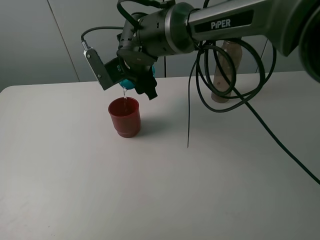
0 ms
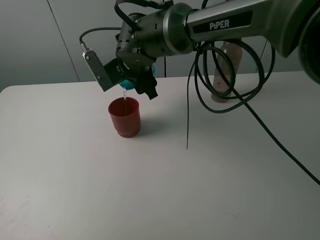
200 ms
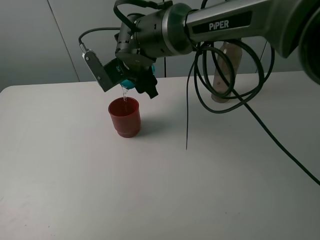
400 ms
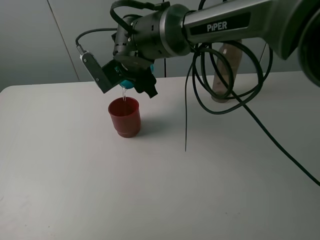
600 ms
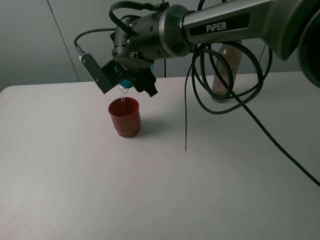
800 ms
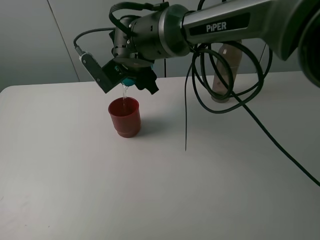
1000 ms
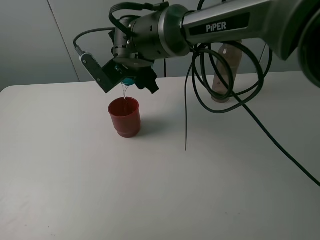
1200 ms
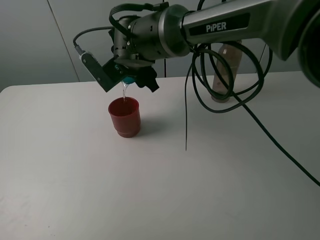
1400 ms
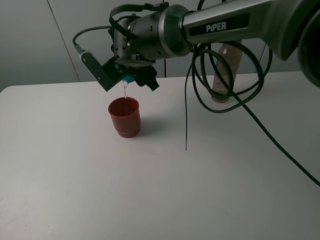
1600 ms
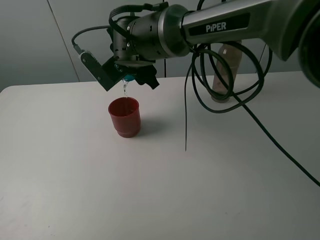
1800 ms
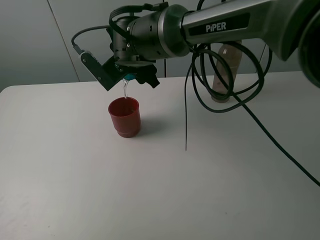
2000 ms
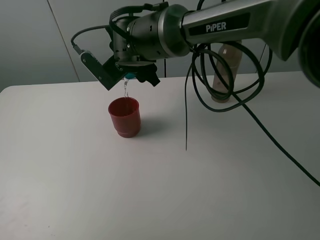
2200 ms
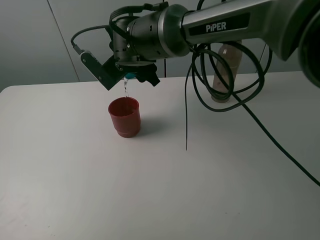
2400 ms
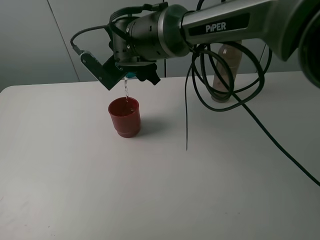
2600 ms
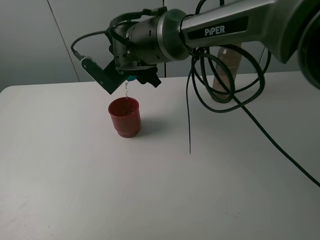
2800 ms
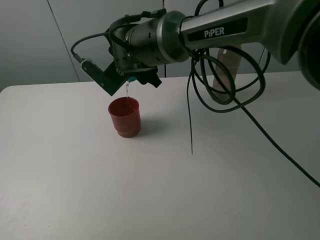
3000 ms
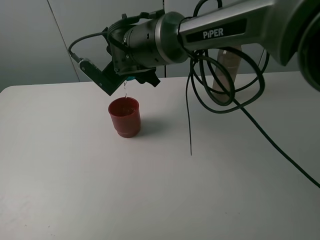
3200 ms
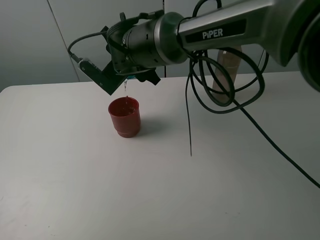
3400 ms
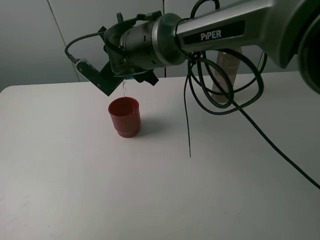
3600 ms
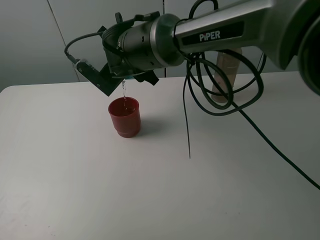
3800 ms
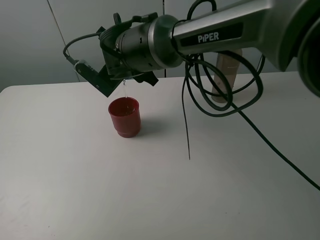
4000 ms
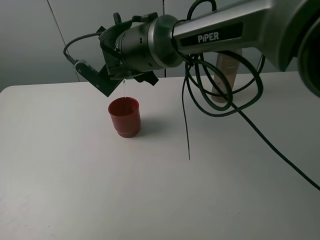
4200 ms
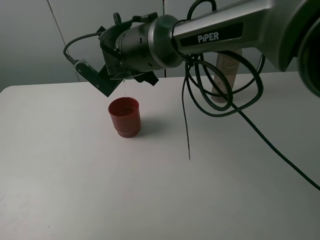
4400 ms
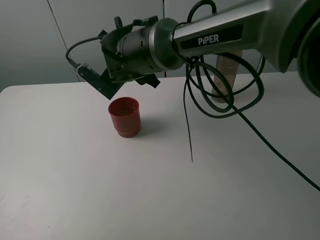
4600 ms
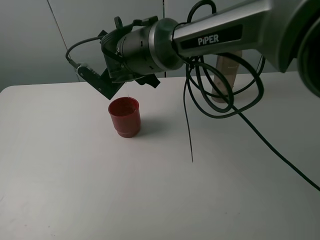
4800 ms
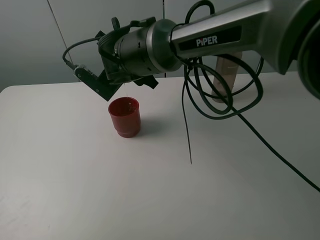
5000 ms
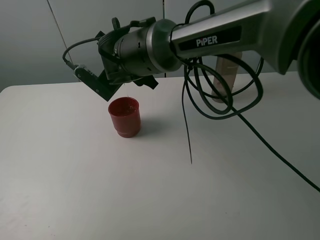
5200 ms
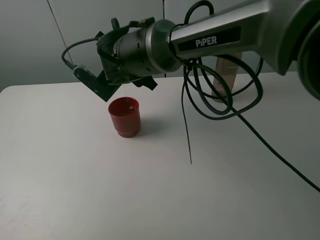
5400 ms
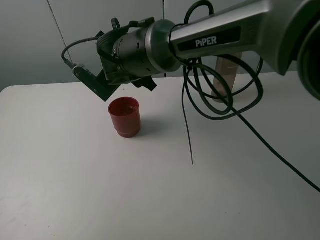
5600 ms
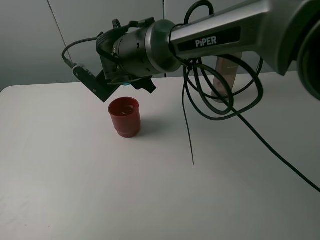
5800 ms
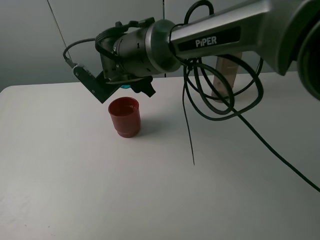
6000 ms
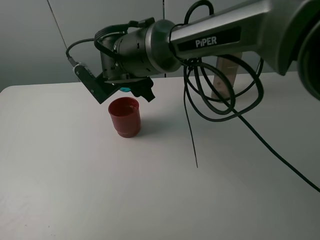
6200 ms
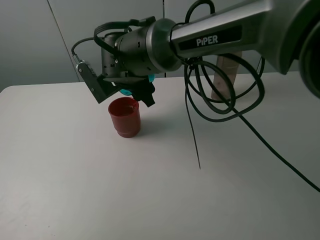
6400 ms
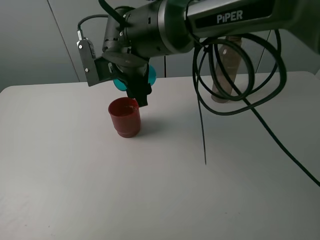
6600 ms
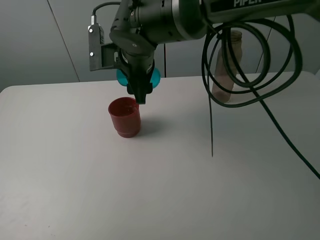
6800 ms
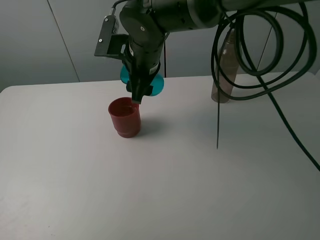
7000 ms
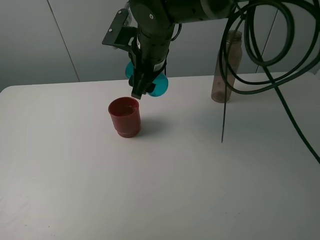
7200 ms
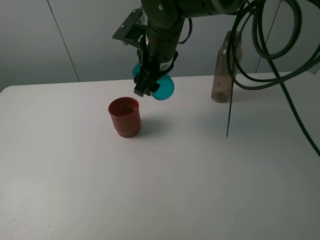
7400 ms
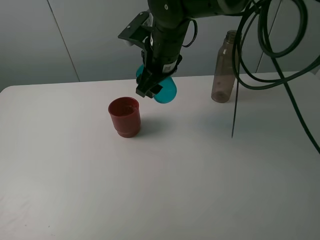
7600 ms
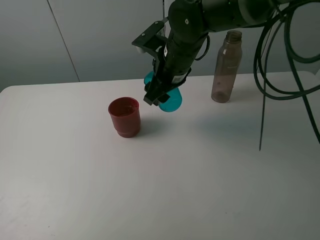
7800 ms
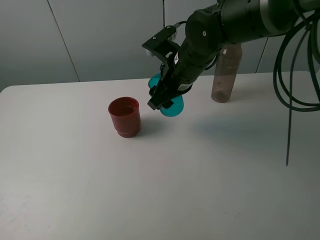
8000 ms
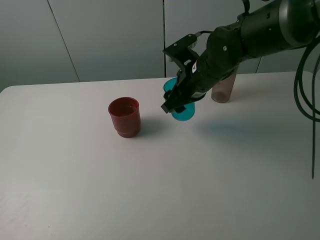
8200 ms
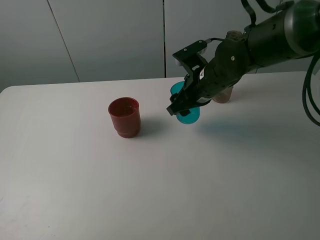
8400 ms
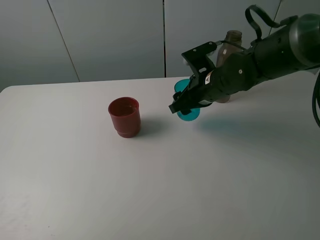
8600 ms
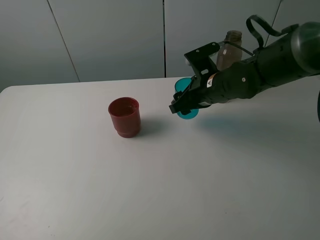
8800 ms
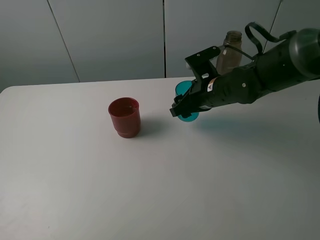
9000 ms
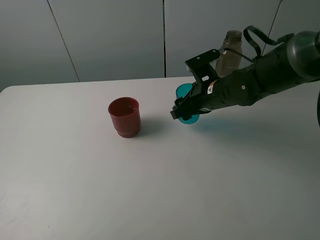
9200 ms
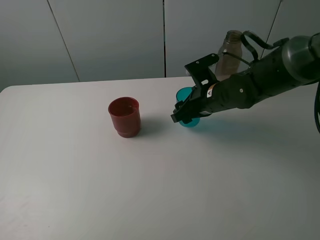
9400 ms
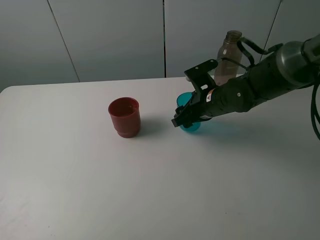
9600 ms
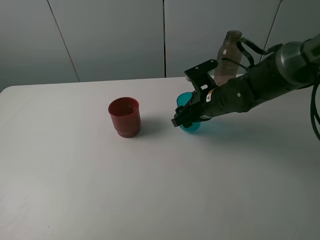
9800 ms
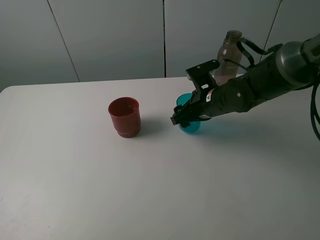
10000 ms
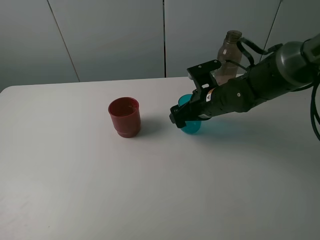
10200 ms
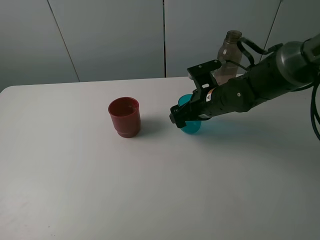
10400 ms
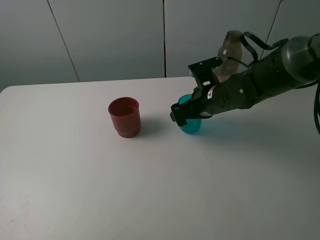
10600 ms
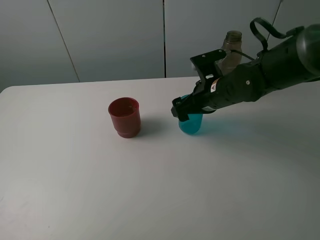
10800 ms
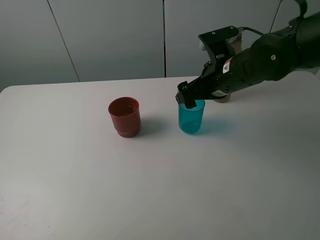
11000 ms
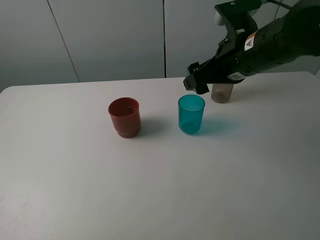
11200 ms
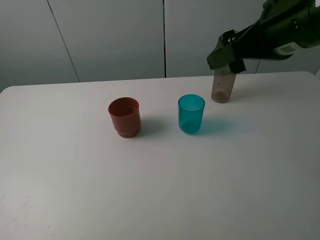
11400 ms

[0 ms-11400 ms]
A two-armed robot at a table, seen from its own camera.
Task of the whole recording: pick up the bottle and pour water into the cup, then pick up the cup containing water and pour it into another cup.
Step, 0 ms to 4600 ms: Pour water from blue cup to red cup with the right gripper.
Step, 4800 ms to 10600 ms: Place the blue cup with the right gripper.
0 ms to 1400 ms: The grippers stay close to where they were, moving slightly.
1400 ms to 4200 ms: The grippers move only a little.
4200 ms to 5600 ms: Both grippers stay put.
5600 ms to 7200 ms: The right gripper heads to the right, covering some 5 cm.
7200 ms to 8600 ms: The right gripper travels to the right and downward by some 15 cm.
8600 ms to 10000 ms: The right gripper opens up.
10000 ms to 11400 ms: The right gripper heads upward and backward, covering about 25 cm, and opens up.

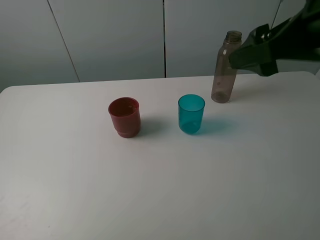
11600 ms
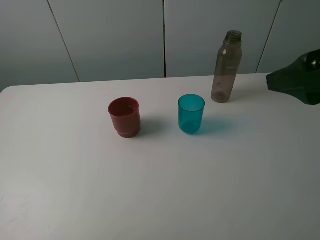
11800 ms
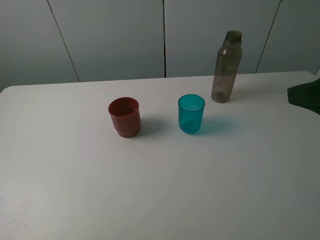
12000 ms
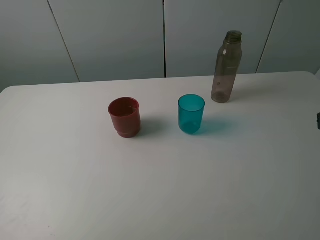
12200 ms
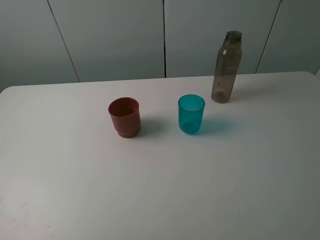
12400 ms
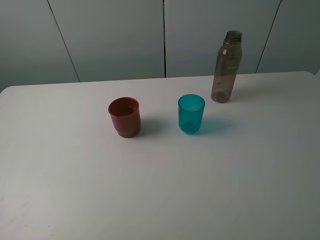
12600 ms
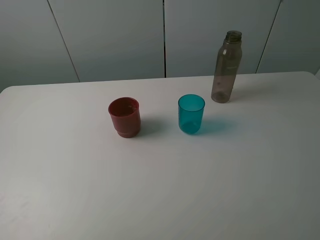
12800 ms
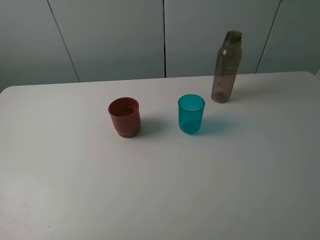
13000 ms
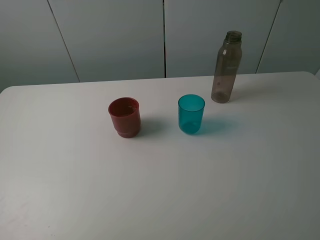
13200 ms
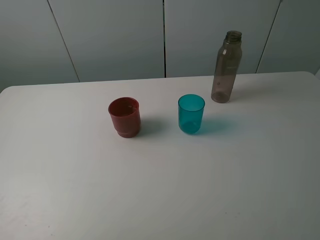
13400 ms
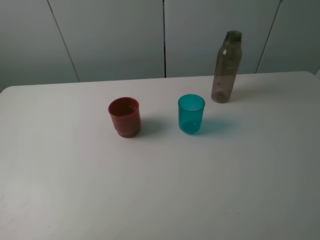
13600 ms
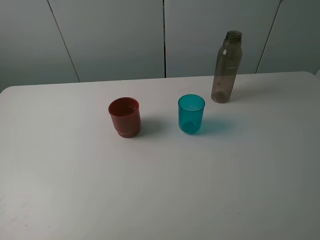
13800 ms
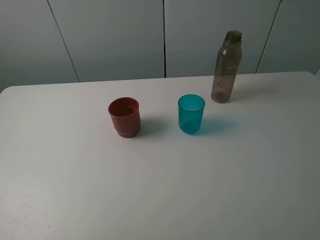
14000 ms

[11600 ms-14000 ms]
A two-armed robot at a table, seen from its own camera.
Task of the whole recording: pick up the bottle and pour water into the cup, then pick up the cup containing water and pour it into another cup.
11600 ms to 12800 ms: The right gripper goes approximately 15 cm backward and to the right.

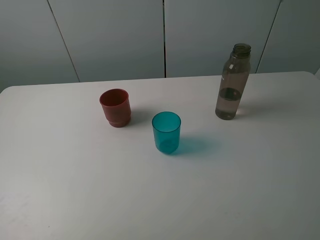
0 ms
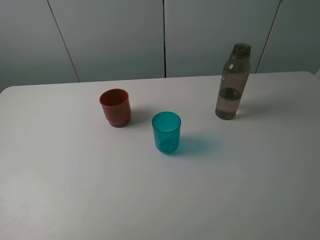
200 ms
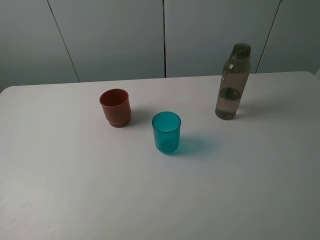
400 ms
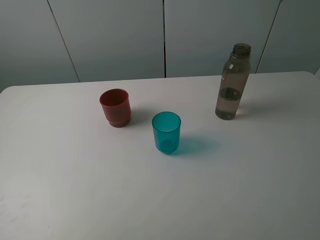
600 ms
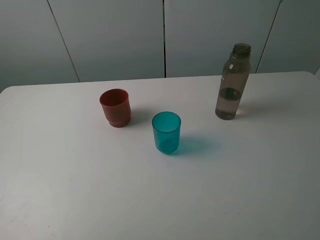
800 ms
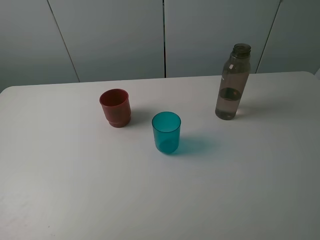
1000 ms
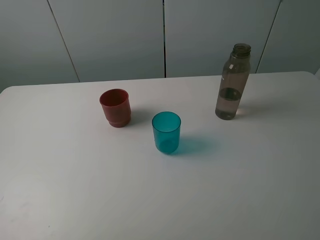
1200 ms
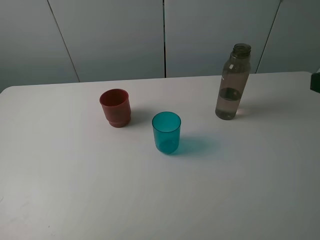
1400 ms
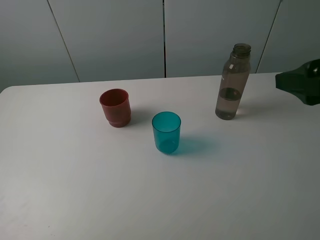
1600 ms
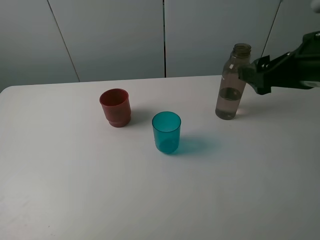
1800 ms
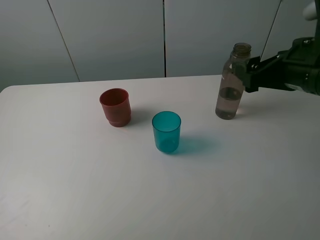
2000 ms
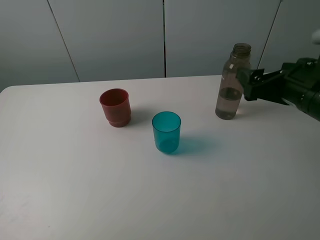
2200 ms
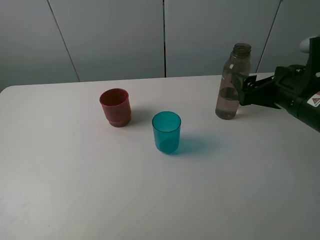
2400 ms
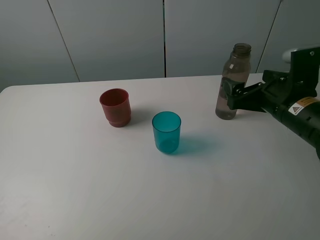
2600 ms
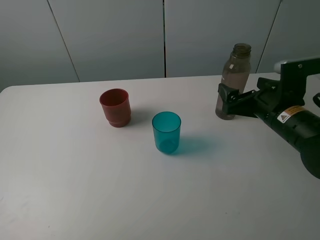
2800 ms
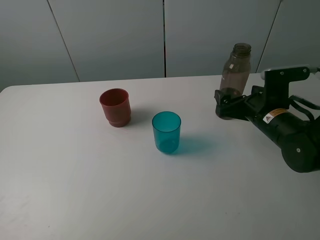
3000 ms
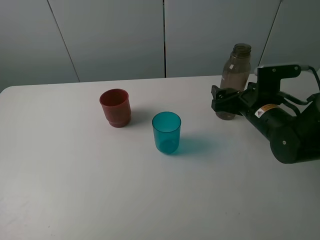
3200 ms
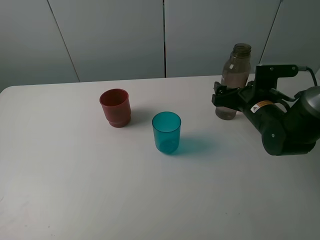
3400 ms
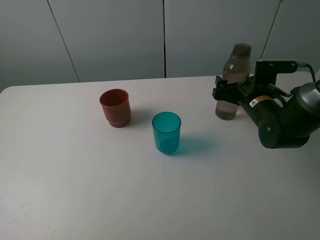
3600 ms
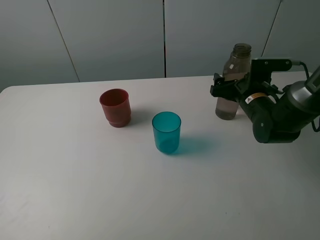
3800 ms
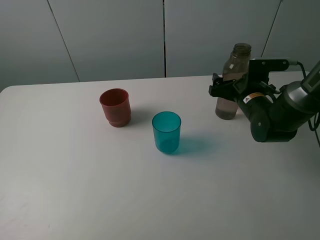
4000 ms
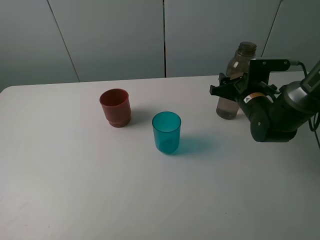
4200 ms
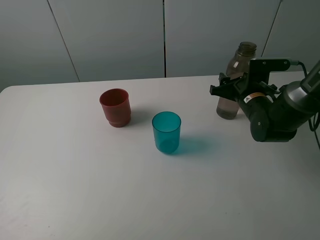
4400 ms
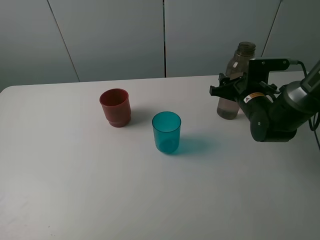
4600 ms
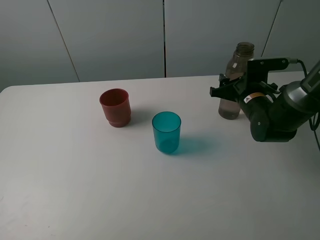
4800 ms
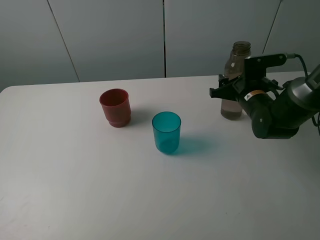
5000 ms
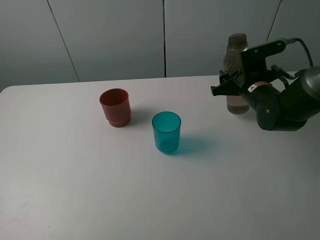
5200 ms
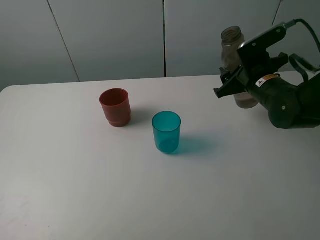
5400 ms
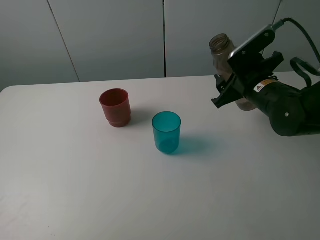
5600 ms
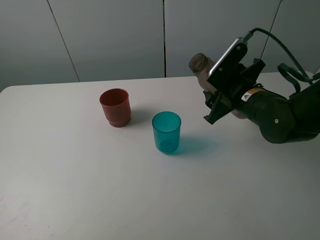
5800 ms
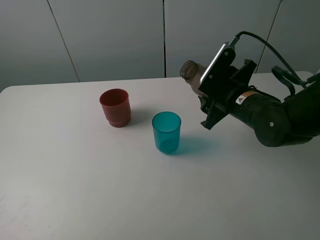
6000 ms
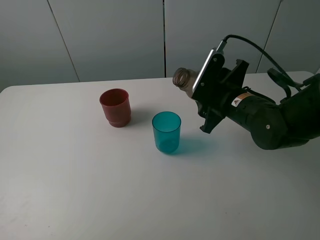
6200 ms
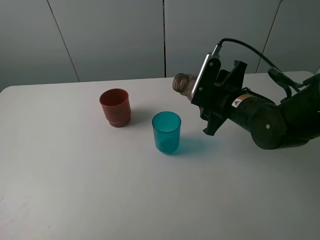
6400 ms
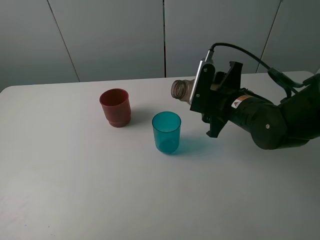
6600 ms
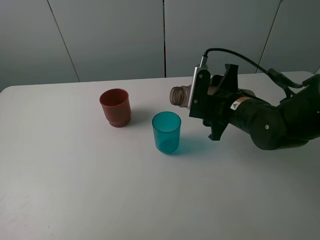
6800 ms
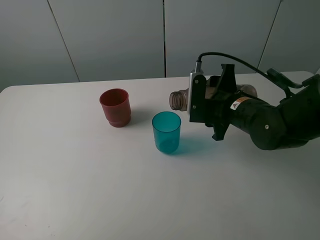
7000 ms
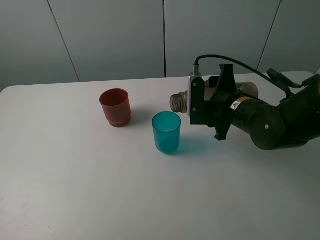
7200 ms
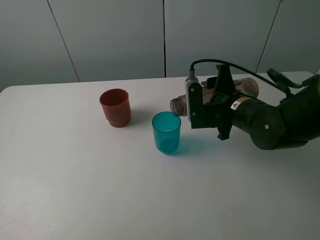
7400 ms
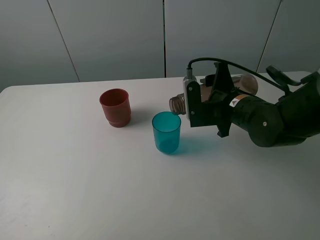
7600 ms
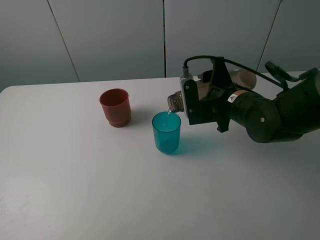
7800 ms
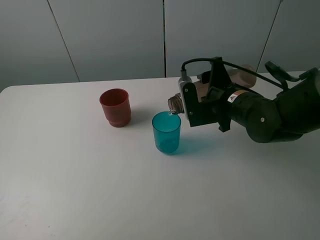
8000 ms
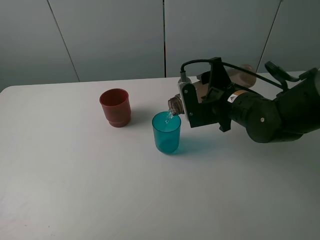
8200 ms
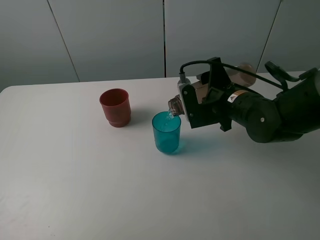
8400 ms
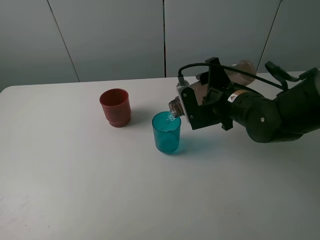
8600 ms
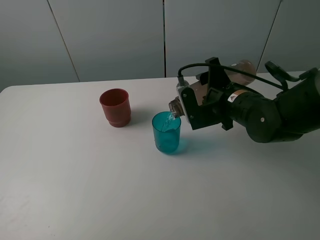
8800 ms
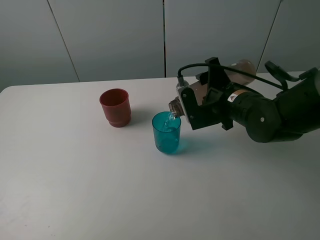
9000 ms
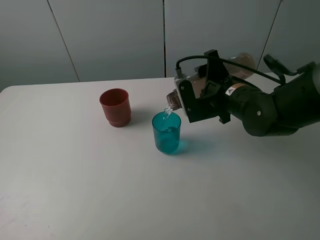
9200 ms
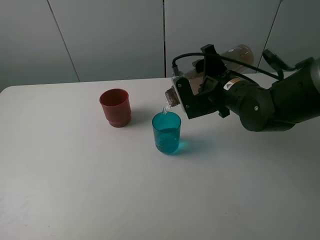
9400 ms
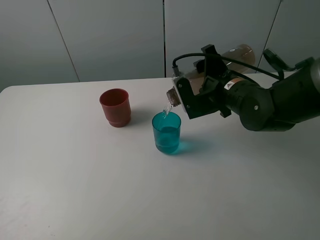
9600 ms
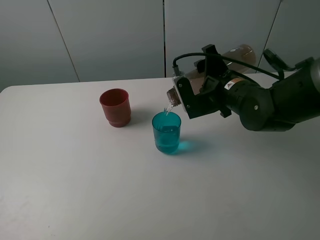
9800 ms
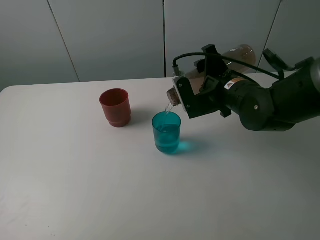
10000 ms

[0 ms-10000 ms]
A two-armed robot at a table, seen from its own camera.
Task of the whole recording: pick up the bottle and pour water into the cup, then pick up the cup containing water and pour it into another cup.
Step, 0 ms to 4800 ms: Grasp the brown bottle with the right gripper.
1400 ms to 2800 ms: The right gripper moves downward and forward, roughly 20 cm.
2800 ms to 4200 ms: The right gripper shifts approximately 10 cm forward, and closes.
4200 ms to 5800 ms: The right gripper goes about 10 cm backward and upward.
7200 ms to 8600 ms: There are only small adjustments of the grippers.
8600 ms to 10000 ms: The grippers make only small movements.
